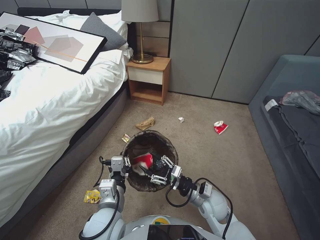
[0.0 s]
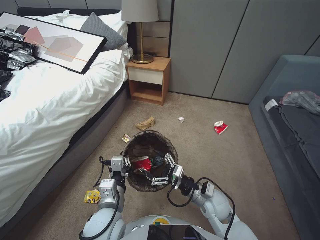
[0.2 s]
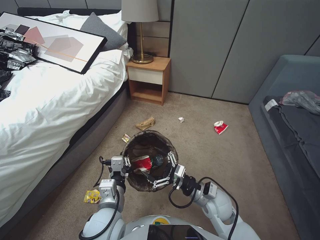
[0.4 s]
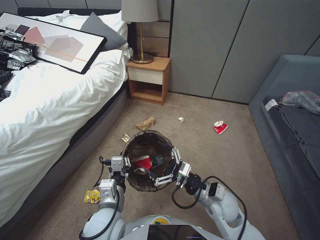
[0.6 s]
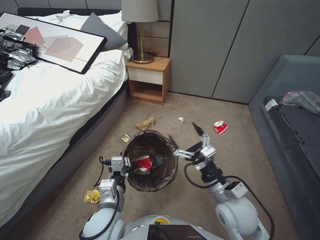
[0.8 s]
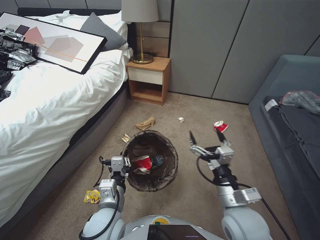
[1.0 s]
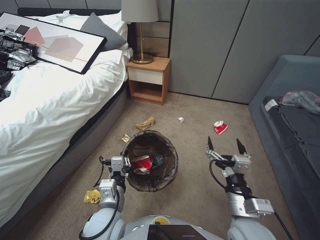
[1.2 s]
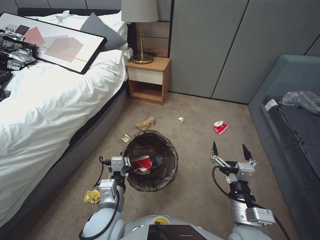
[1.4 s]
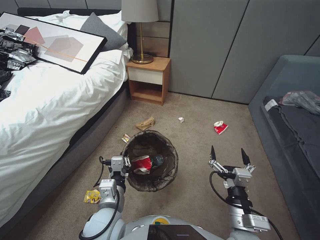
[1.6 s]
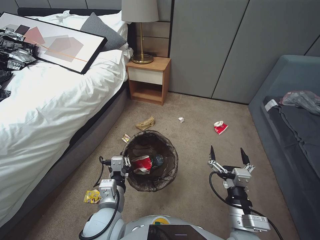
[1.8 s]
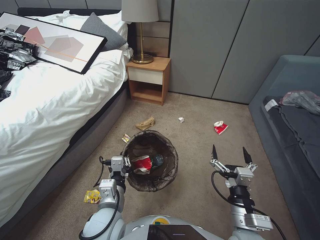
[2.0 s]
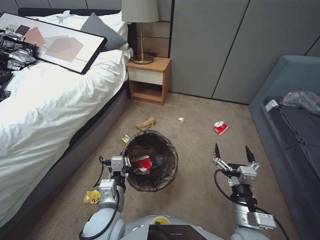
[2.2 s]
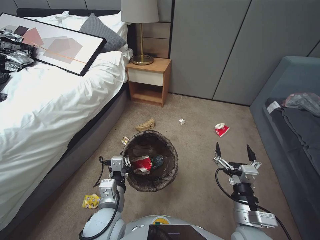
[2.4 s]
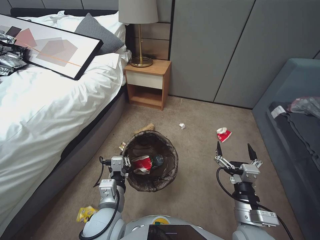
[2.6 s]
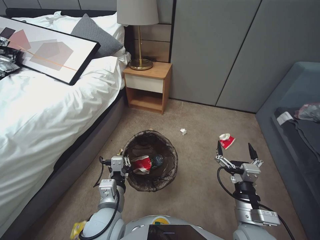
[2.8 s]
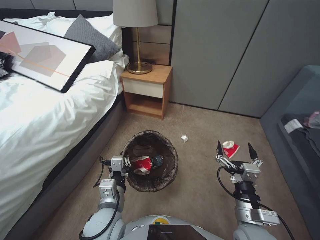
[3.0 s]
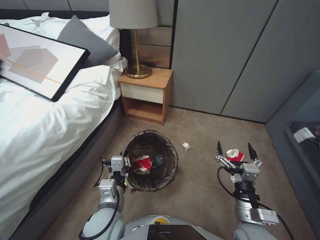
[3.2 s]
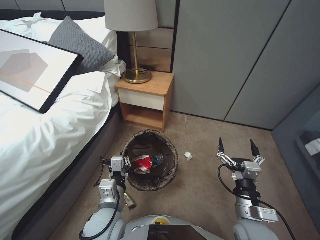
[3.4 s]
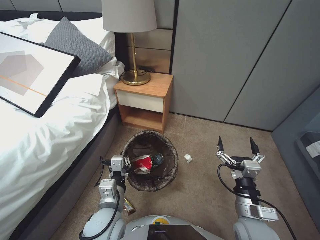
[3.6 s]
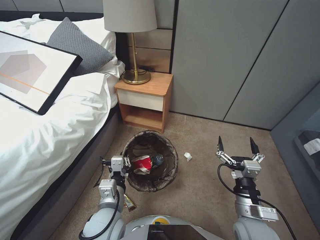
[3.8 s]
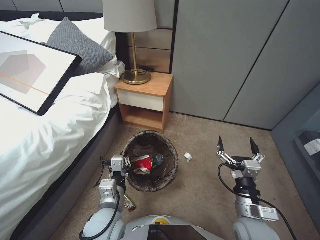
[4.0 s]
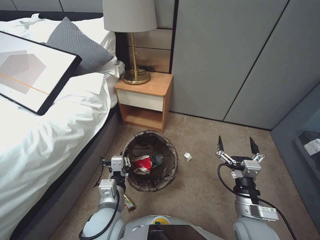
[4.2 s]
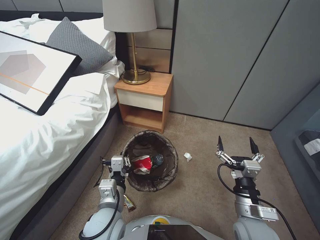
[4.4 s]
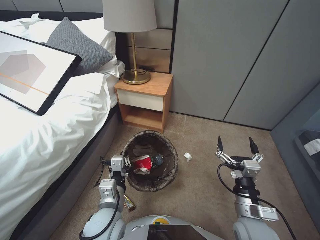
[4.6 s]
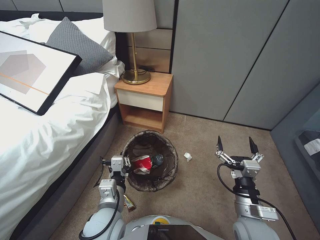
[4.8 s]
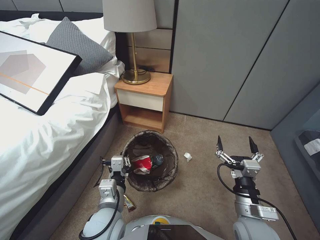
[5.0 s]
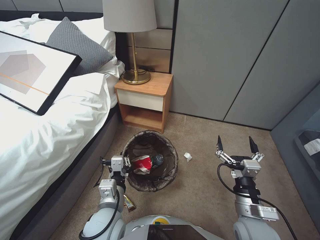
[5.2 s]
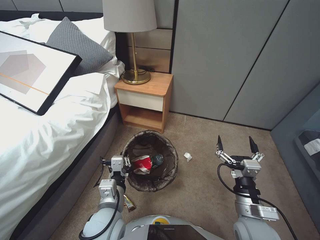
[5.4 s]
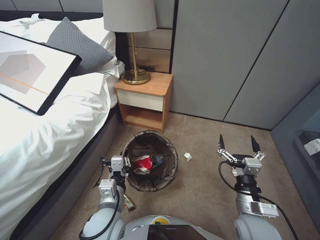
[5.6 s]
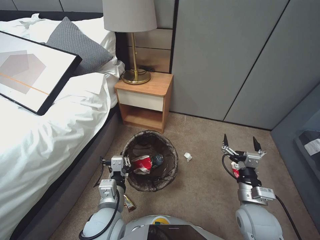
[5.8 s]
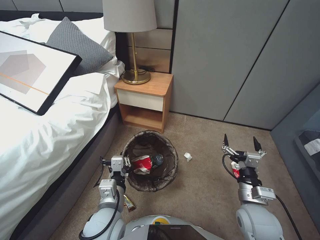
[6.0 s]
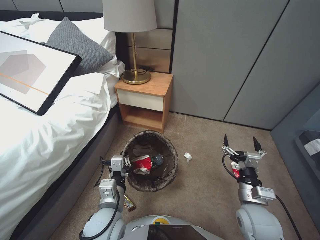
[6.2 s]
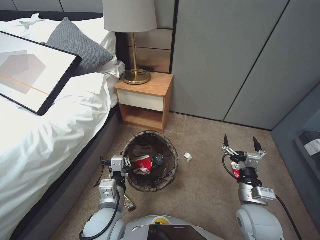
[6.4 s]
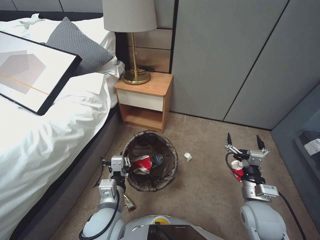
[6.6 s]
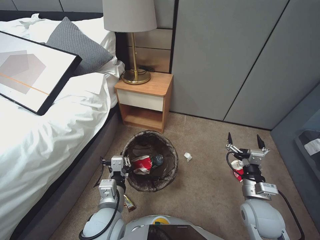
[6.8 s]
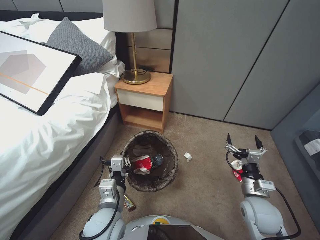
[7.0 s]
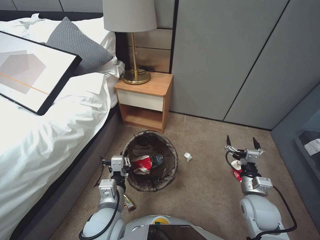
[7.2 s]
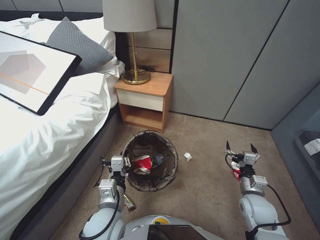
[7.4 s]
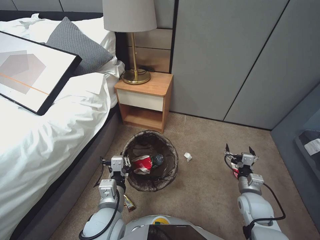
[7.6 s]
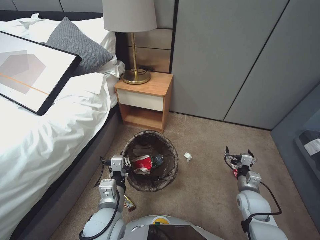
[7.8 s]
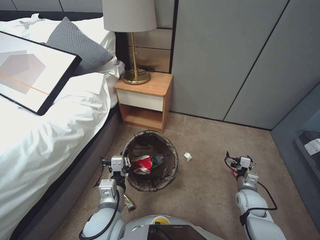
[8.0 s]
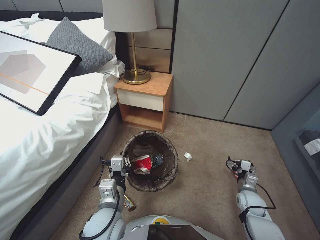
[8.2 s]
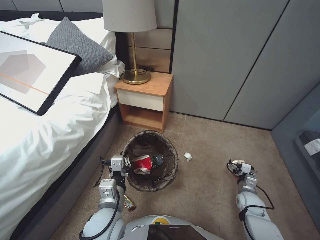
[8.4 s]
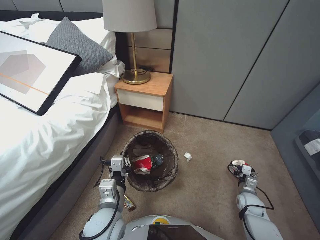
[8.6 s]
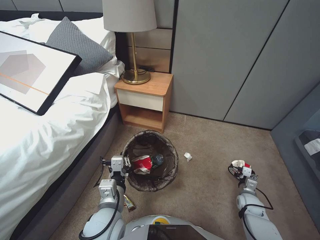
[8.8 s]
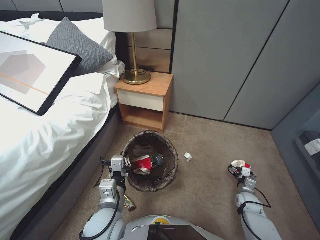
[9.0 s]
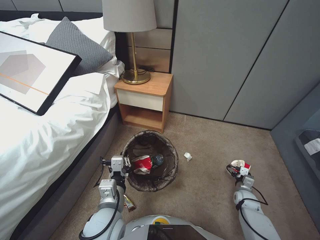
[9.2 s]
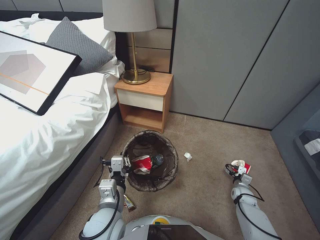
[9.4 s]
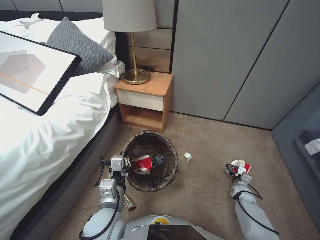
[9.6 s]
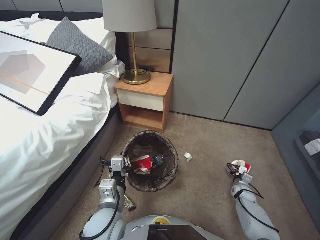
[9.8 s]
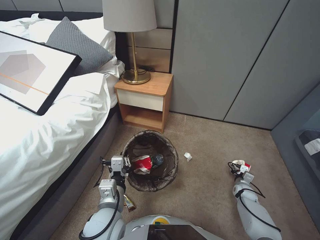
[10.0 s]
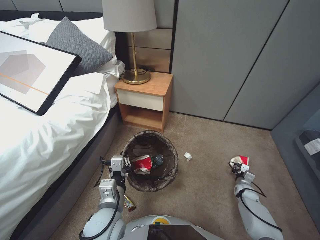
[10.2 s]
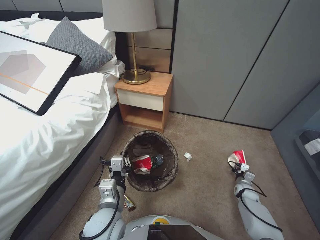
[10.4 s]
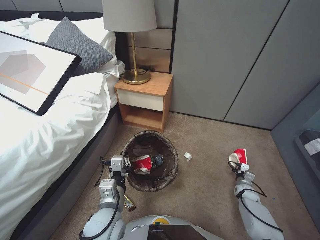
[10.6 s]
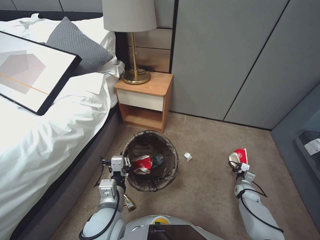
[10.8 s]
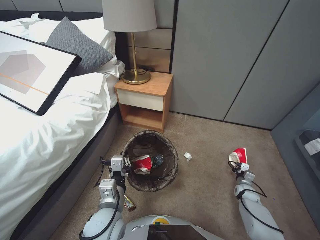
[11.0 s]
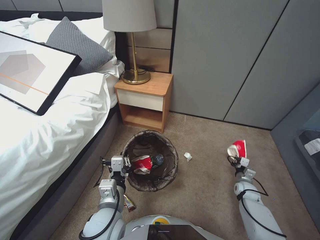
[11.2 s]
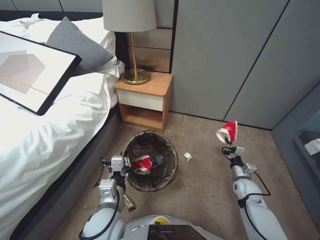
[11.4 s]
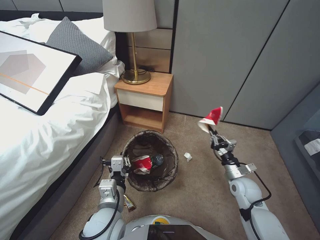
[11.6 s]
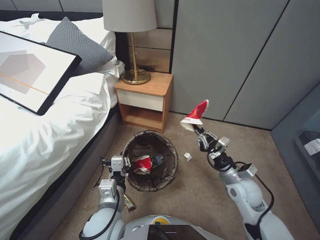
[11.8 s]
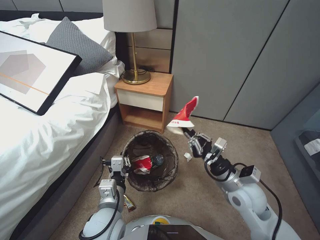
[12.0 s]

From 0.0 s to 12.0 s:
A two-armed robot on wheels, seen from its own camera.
Task of the whole recording: Pick up the trash bin, then pick up the garbage from the floor and place it into the trash bin.
From 0.0 s to 1.6 s: The right gripper heads backward and upward, covering approximately 15 cm, and opens.
From 4.4 s to 6.0 s: The grippers stay close to where they were, moving slightly.
From 6.0 s to 7.6 s: The right gripper heads downward and to the right, covering some 10 cm.
From 7.6 s to 9.0 s: The right gripper moves downward and to the right, approximately 15 cm.
From 9.0 s to 10.4 s: The right gripper shifts about 5 cm forward, and closes.
From 10.4 s to 12.0 s: The right gripper goes roughly 35 cm upward and to the left.

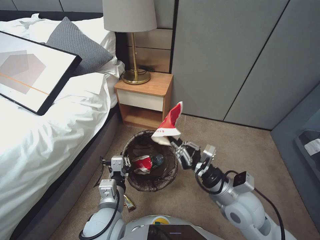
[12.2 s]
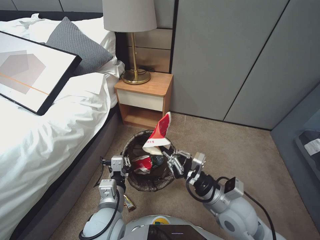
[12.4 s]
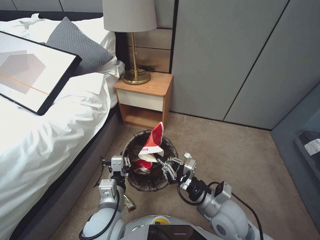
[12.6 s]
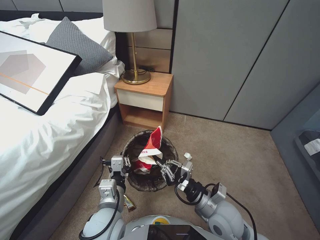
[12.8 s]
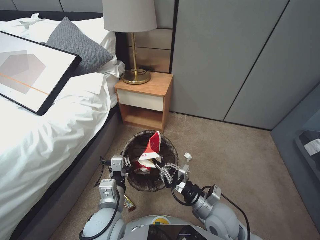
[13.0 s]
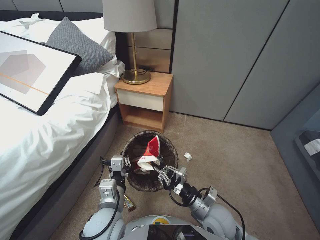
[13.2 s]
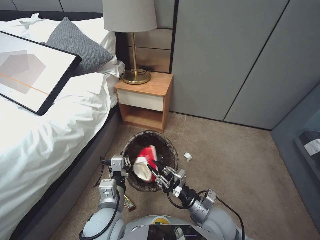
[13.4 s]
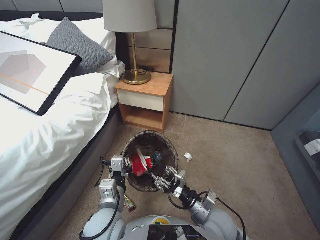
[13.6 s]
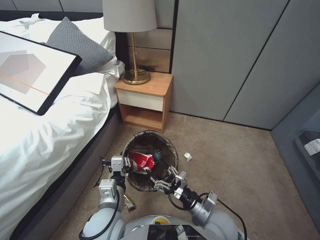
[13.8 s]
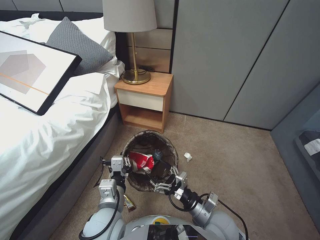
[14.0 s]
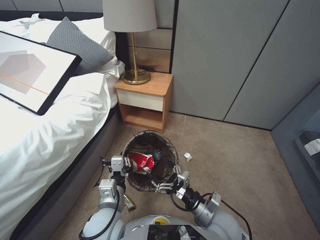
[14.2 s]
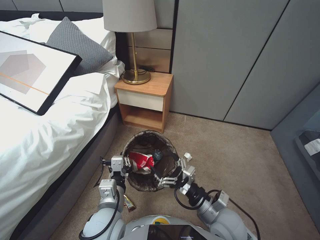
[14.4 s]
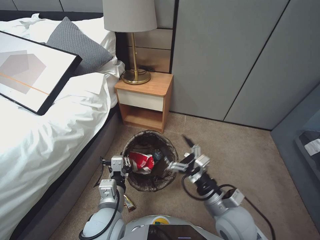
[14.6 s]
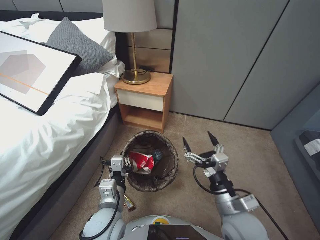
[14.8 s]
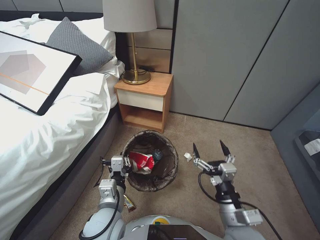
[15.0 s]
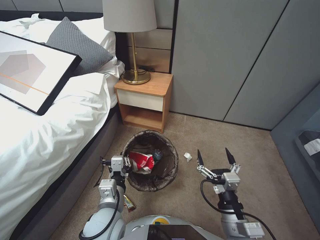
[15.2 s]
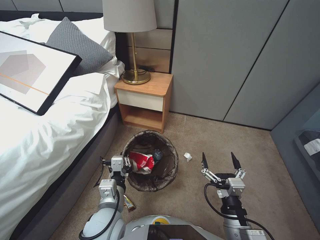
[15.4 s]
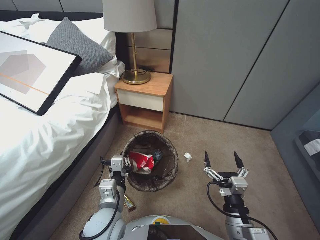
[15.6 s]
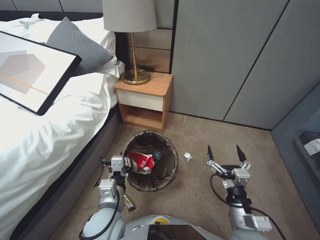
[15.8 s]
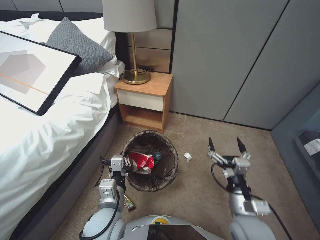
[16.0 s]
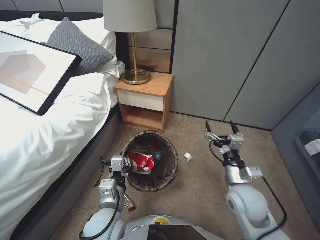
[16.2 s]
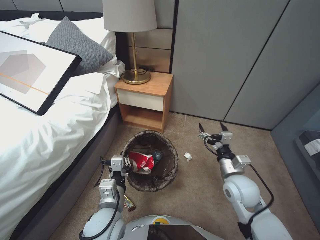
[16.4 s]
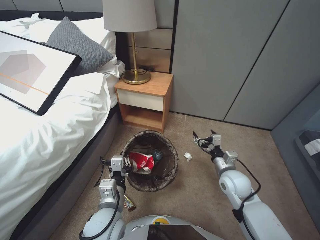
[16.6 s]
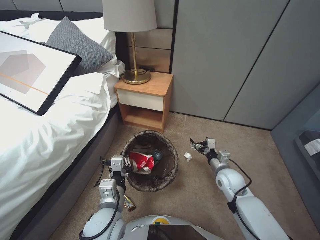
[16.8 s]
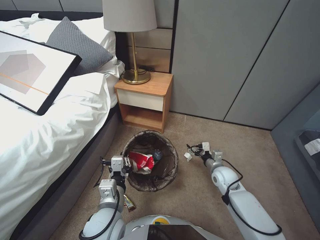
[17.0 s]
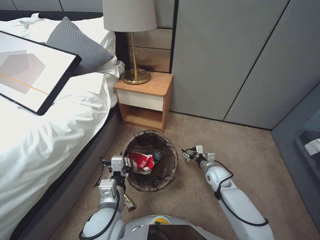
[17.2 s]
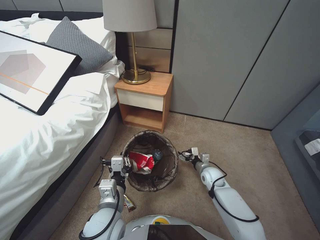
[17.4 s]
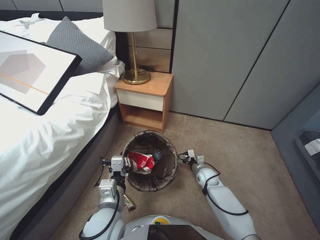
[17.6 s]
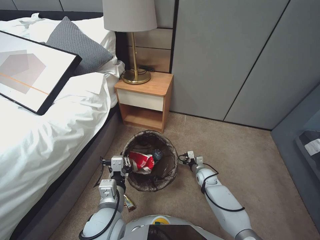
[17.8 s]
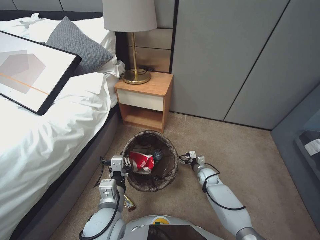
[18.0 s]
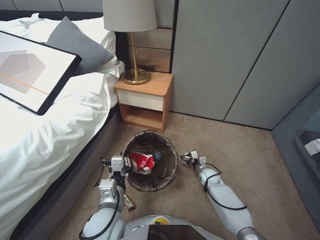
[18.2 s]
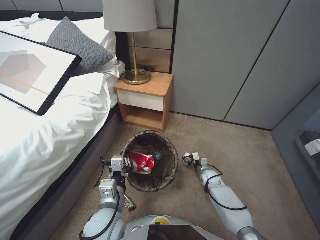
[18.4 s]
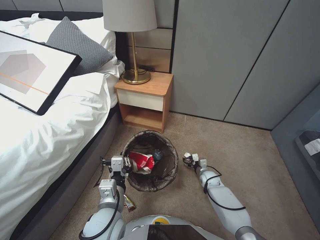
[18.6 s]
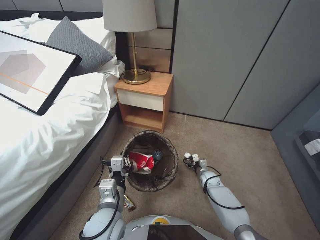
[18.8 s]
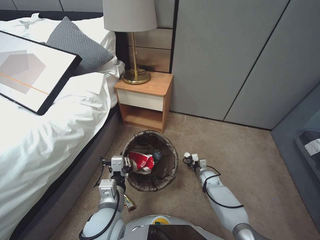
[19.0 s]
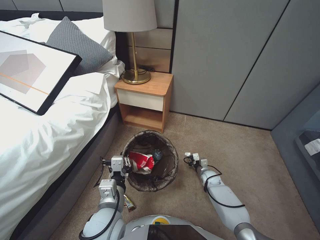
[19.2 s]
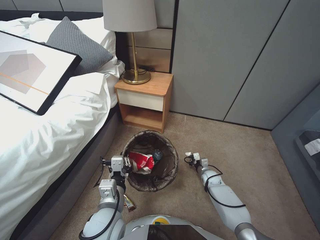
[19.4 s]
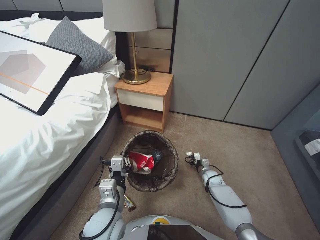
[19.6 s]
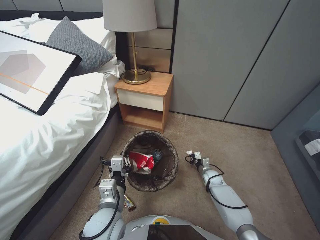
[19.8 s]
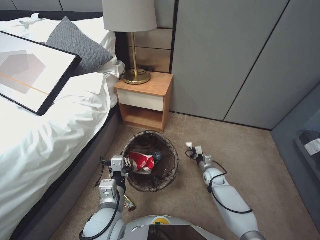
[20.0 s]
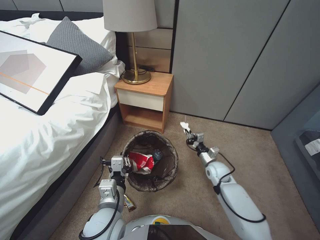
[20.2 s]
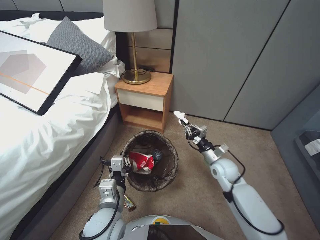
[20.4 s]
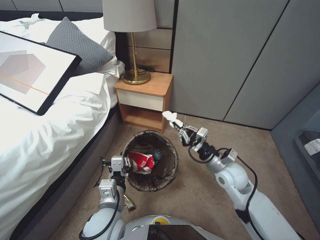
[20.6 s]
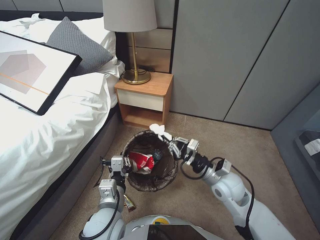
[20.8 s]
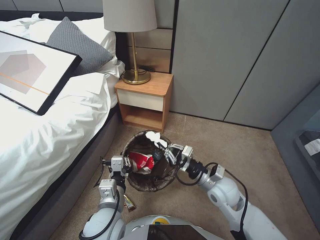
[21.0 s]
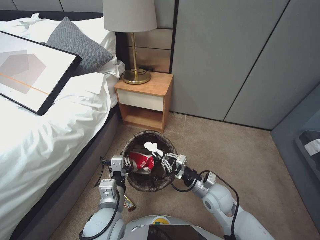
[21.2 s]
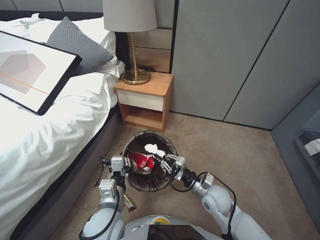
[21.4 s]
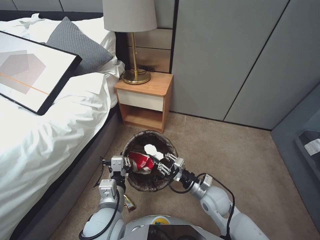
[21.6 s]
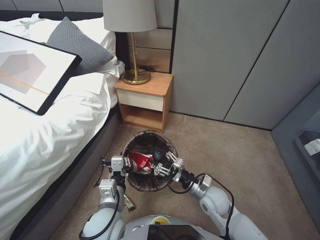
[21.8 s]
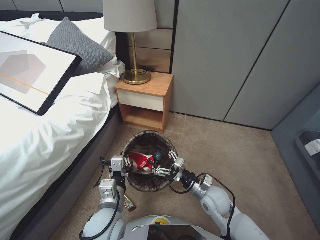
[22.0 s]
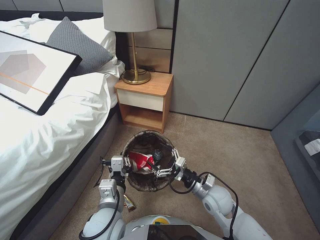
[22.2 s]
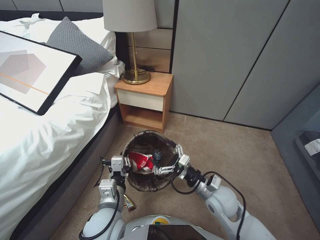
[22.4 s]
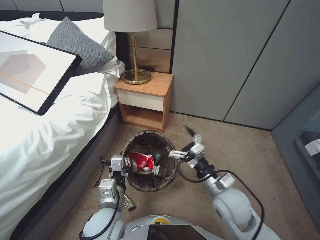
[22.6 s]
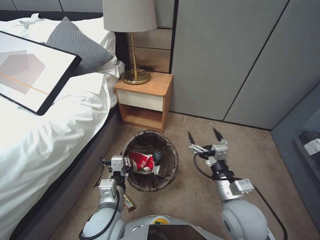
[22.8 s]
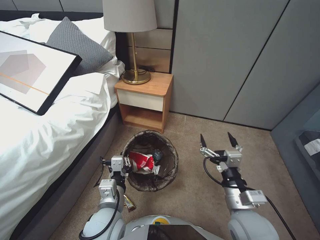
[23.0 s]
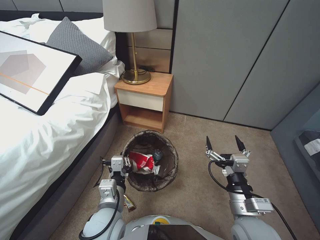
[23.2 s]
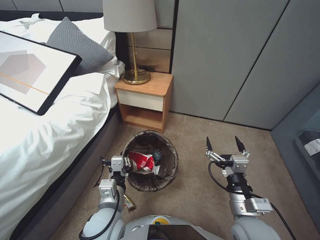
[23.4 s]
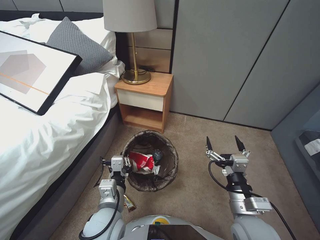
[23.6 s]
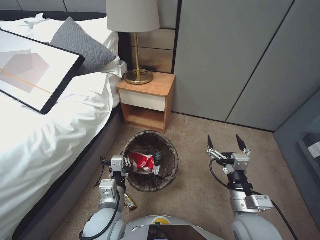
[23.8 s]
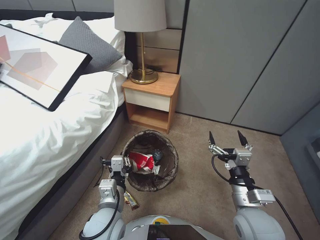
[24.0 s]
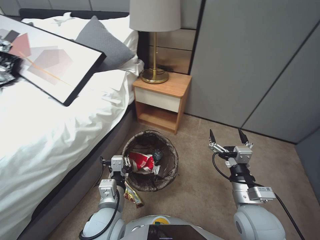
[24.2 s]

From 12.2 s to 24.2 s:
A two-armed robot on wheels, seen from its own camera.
Task of the whole recording: Pick up the trash bin, then pick up the garbage from the floor and place it into the trash bin.
From 12.2 s to 13.8 s: The right gripper goes about 10 cm downward and to the left, and opens up.
From 13.8 s to 15.2 s: The right gripper goes approximately 10 cm upward, and opens up.
From 15.2 s to 16.6 s: The right gripper shifts roughly 15 cm forward and to the right.
From 16.6 s to 18.2 s: The right gripper shifts about 25 cm downward and forward.
From 18.2 s to 19.8 s: The right gripper closes up.
From 19.8 s to 21.2 s: The right gripper moves upward, backward and to the left, roughly 25 cm.
From 21.2 s to 22.6 s: The right gripper ends up about 5 cm from where it was, and opens up.
From 22.6 s to 24.2 s: The right gripper moves backward, about 5 cm.
